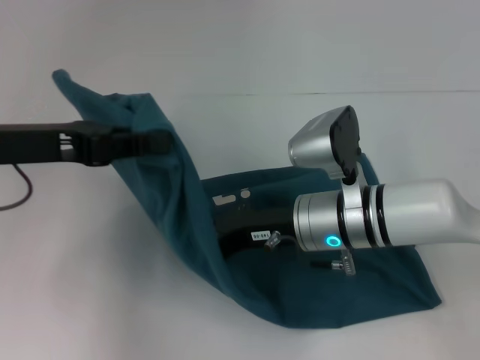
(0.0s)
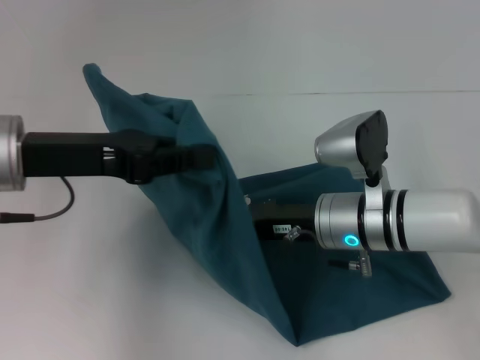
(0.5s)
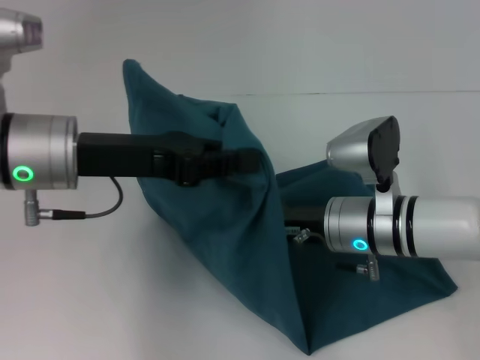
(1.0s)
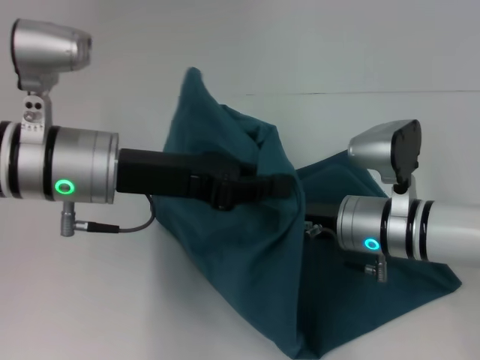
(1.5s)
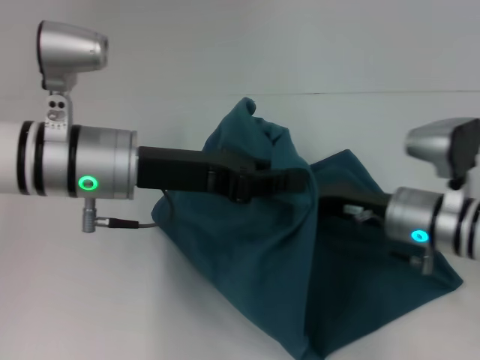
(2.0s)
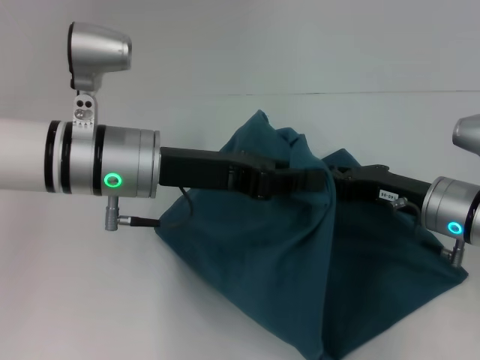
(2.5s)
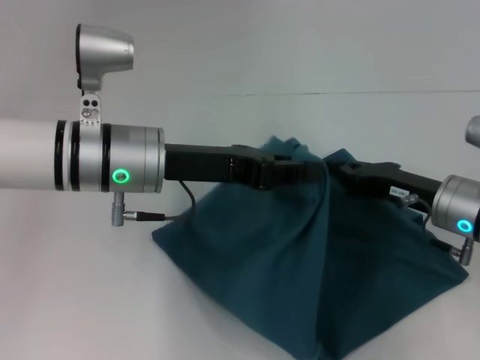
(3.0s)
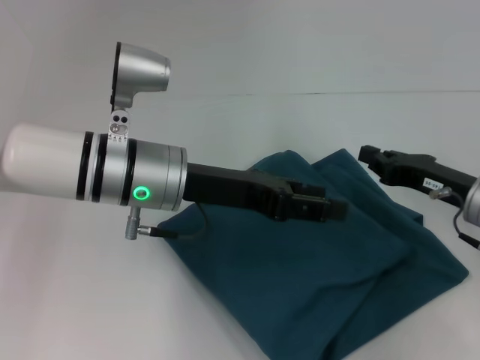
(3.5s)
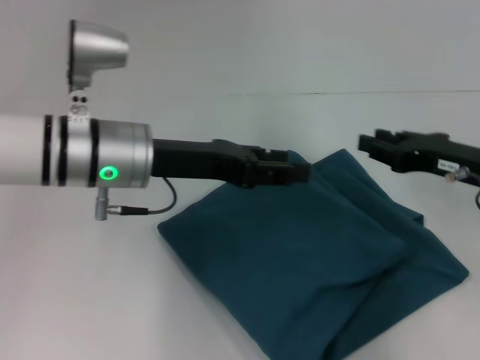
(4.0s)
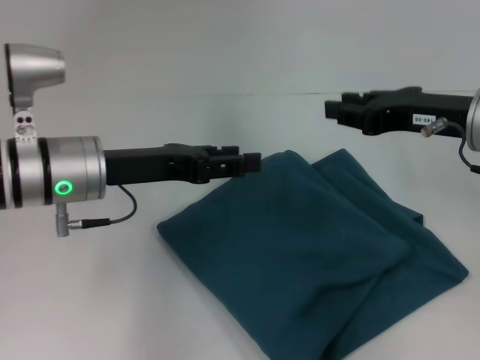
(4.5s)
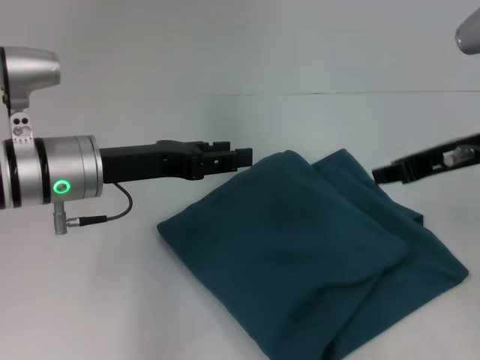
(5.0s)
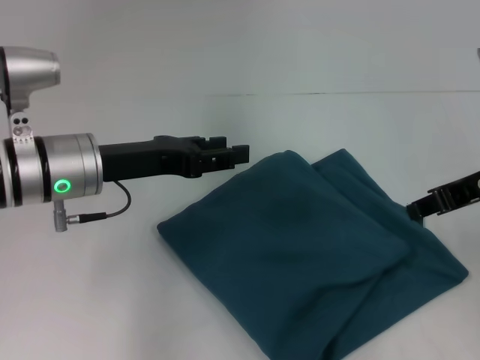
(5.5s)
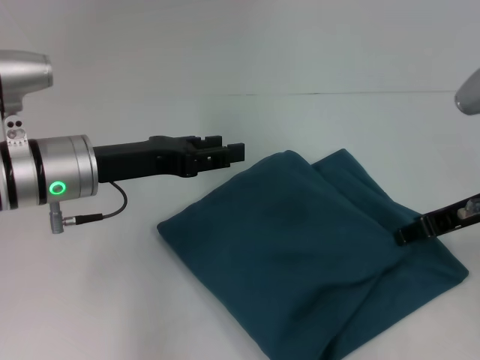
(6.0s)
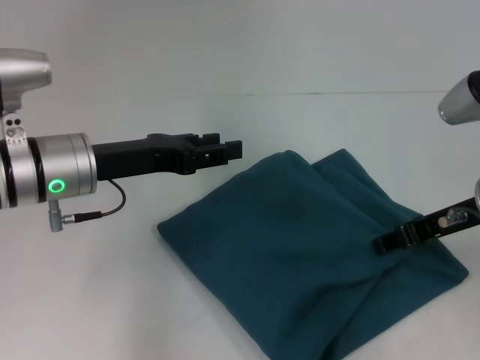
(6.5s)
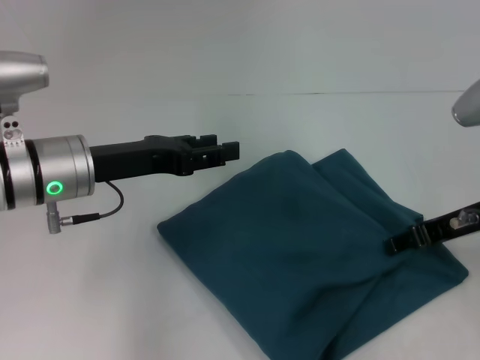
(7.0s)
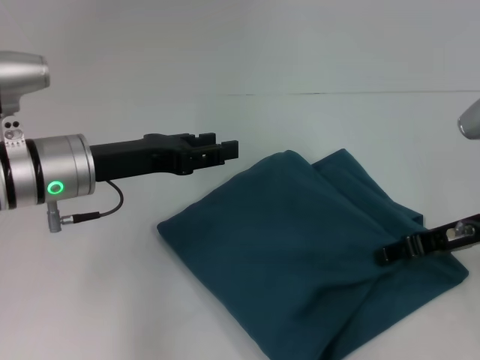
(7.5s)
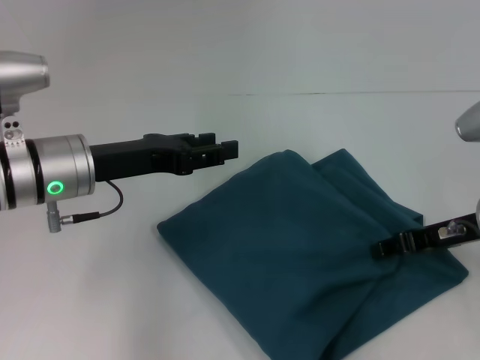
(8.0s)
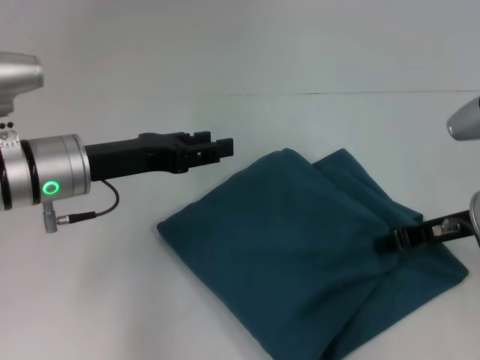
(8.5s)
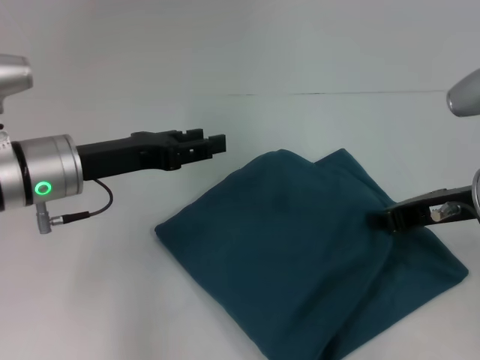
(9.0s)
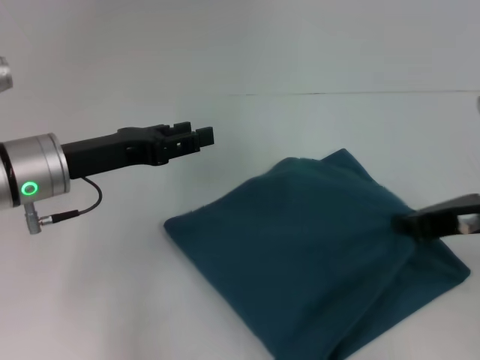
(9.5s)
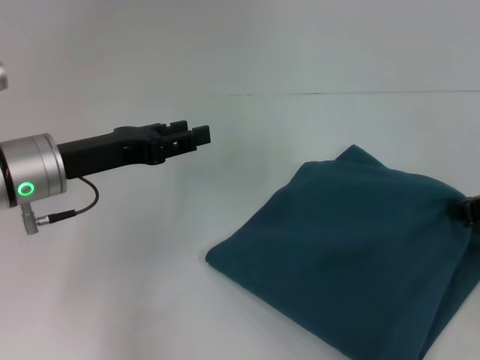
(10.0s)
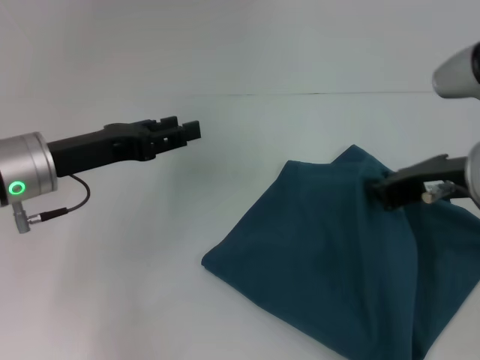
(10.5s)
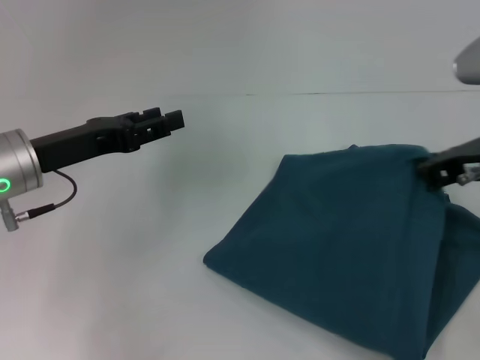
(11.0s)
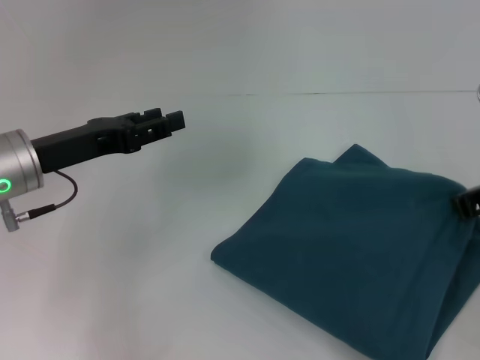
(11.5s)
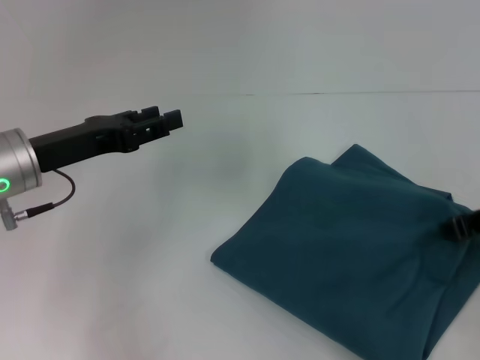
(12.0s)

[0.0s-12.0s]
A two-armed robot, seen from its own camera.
Step, 0.0s to 2.0s: Press the middle of the clothes with your right hand.
Step, 2.5s to 3.5s: Fold the clothes to the left.
0.0s to 2.0s: Both grippers move to the right, roughly 10 cm.
2.0s to 4.0s: The right gripper is displaced to the right and upward by approximately 10 cm. The left gripper opens up.
4.0s to 6.0s: The left gripper moves to the left, approximately 5 cm.
6.0s to 8.0s: The grippers stay close to where they were, moving slightly.
8.0s to 10.0s: The right gripper travels upward by roughly 5 cm, and closes up.

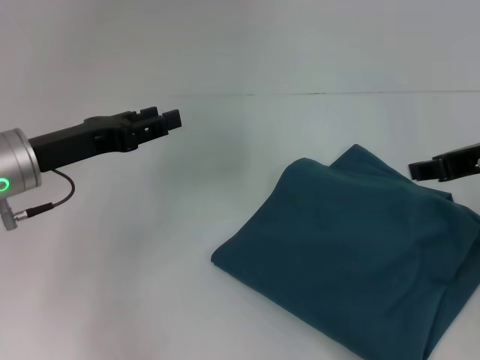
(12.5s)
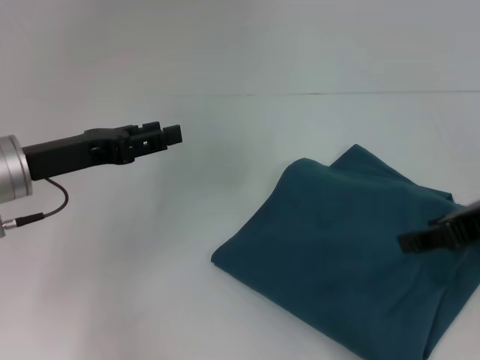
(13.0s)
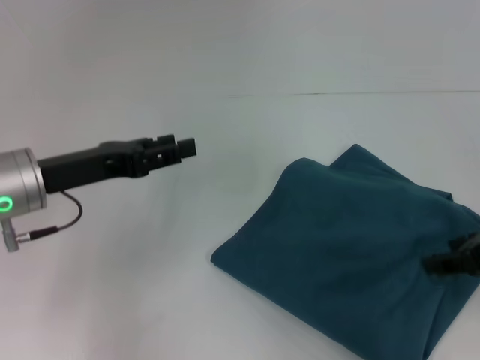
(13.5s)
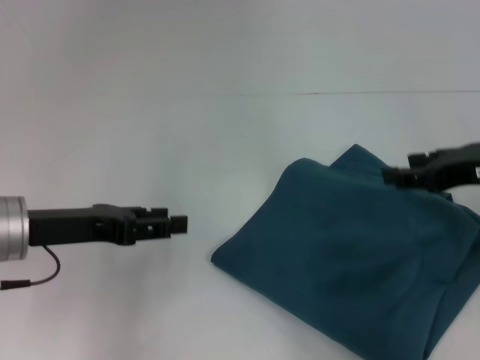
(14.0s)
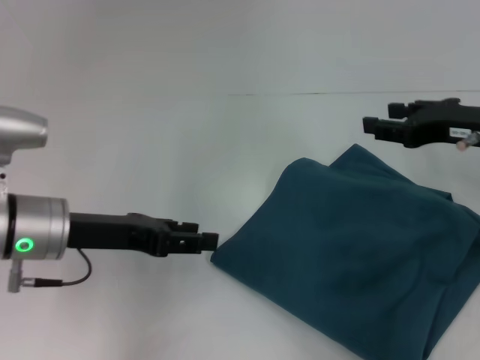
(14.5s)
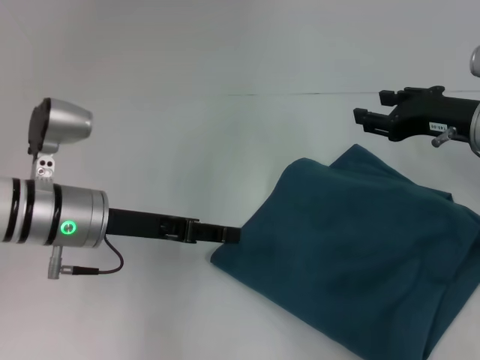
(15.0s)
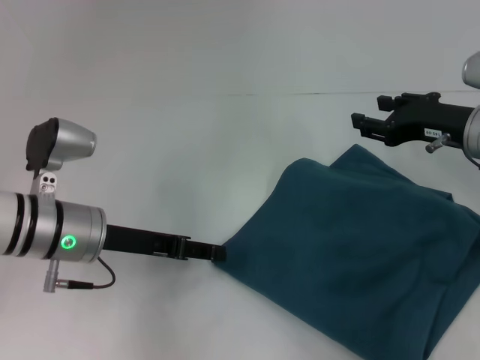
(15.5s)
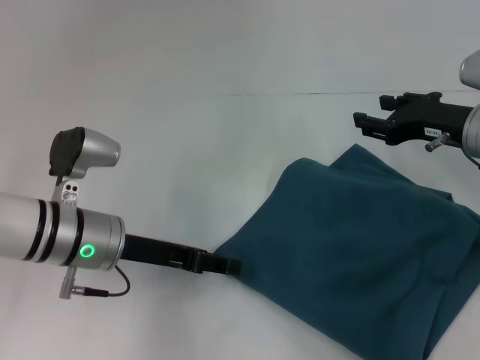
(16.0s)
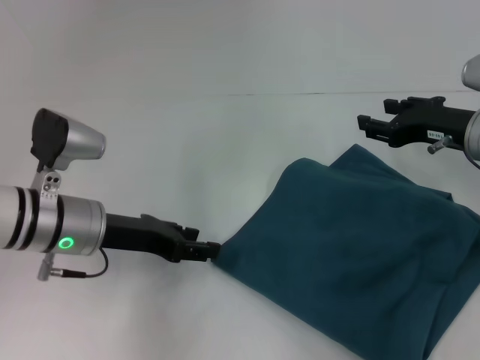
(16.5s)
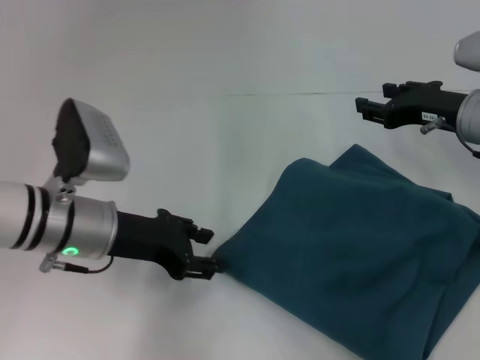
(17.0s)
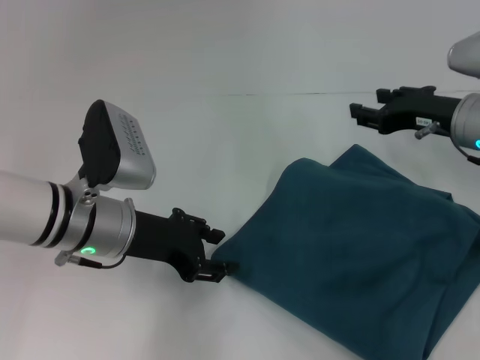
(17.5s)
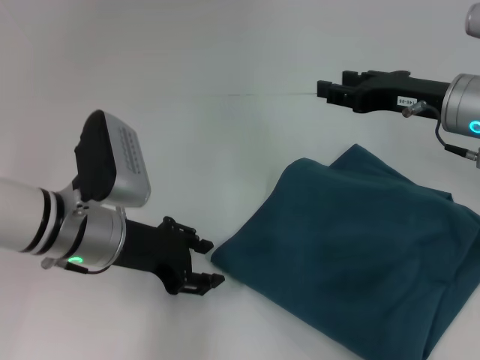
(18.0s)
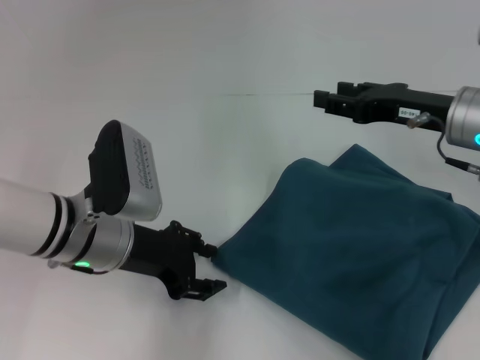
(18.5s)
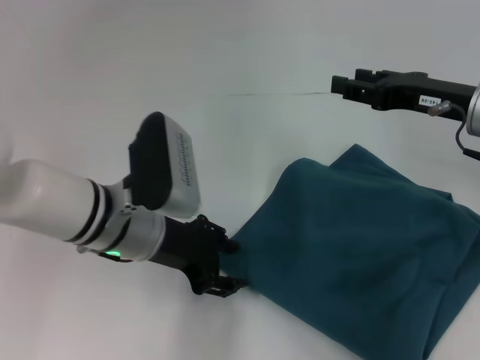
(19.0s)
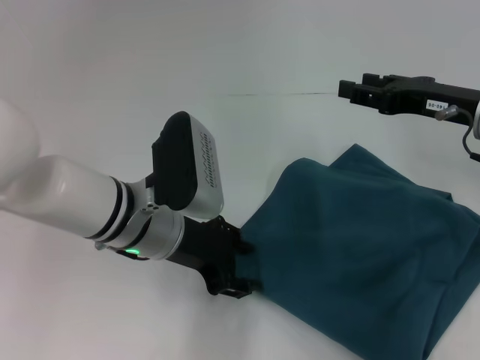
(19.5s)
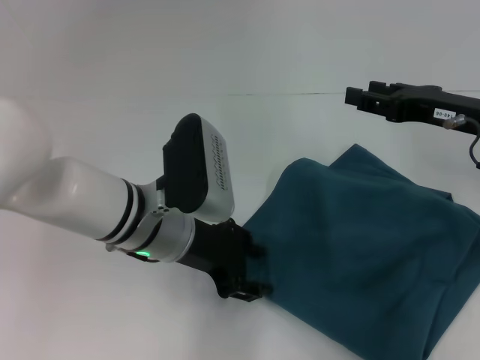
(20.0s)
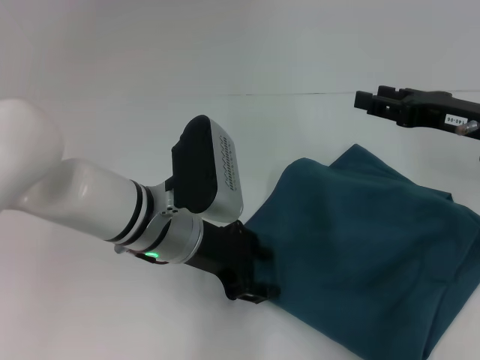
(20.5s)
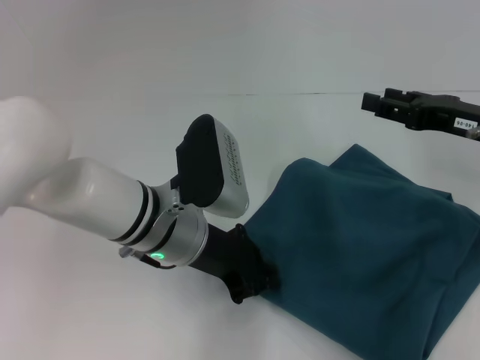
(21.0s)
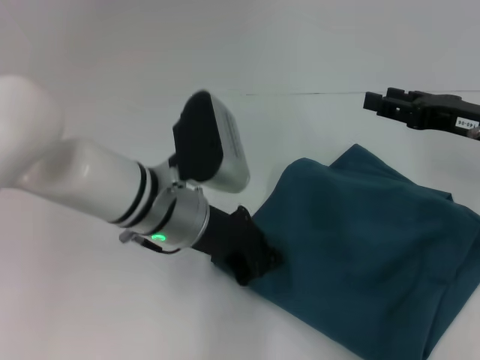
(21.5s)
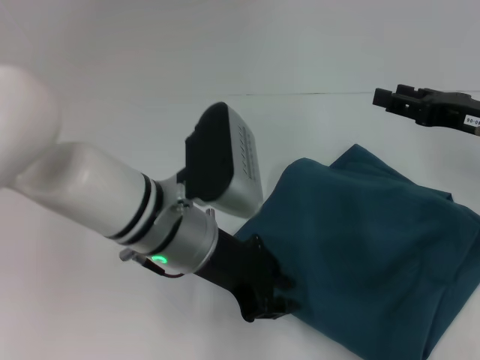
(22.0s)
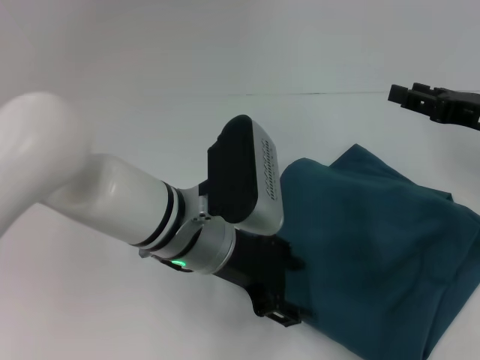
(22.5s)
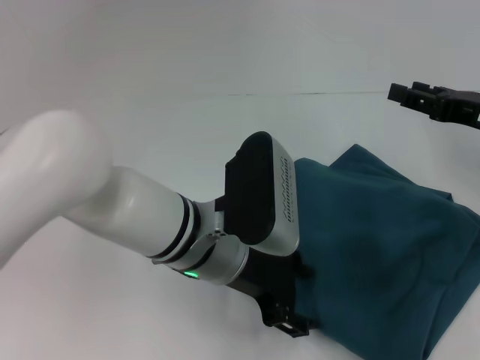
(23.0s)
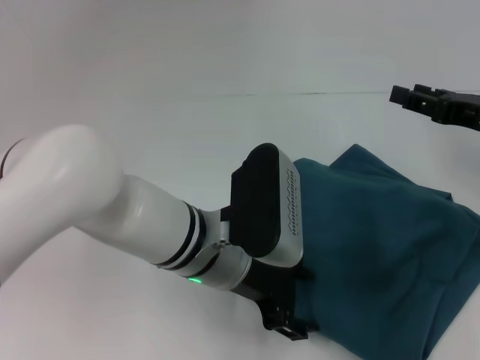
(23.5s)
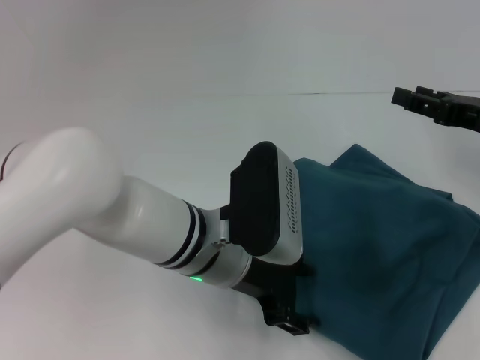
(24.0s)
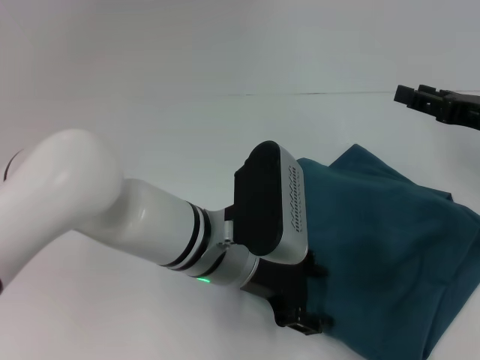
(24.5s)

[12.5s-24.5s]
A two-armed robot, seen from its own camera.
12.5s to 14.5s: The right gripper heads downward, covering roughly 5 cm.
14.5s to 16.5s: The grippers stay close to where they were, moving slightly.
18.5s to 20.5s: The left gripper shifts about 5 cm to the right.
20.5s to 22.5s: The left gripper closes and opens again.
22.5s to 24.5s: There are only small adjustments of the grippers.

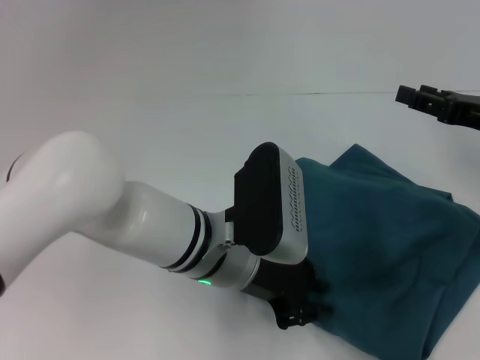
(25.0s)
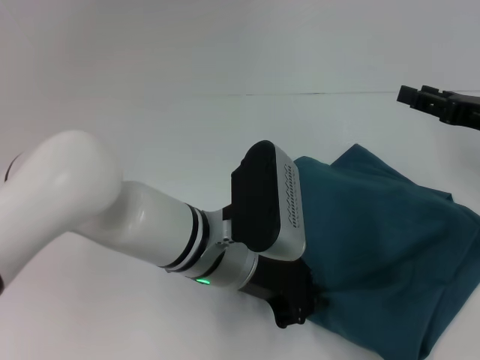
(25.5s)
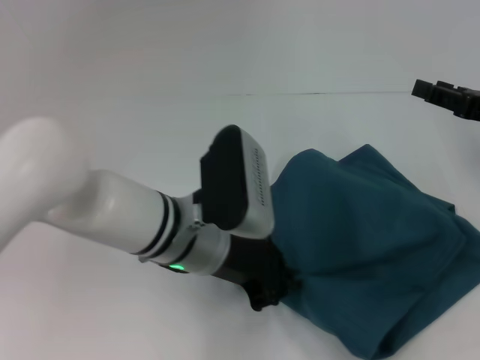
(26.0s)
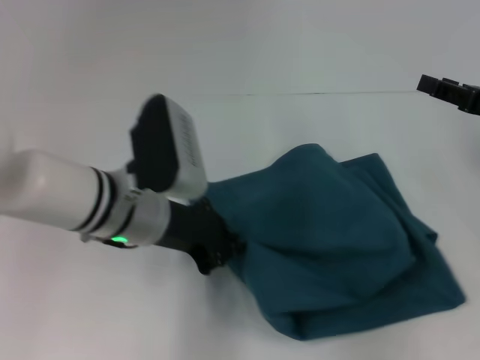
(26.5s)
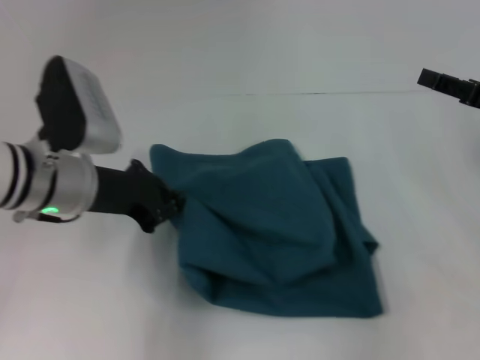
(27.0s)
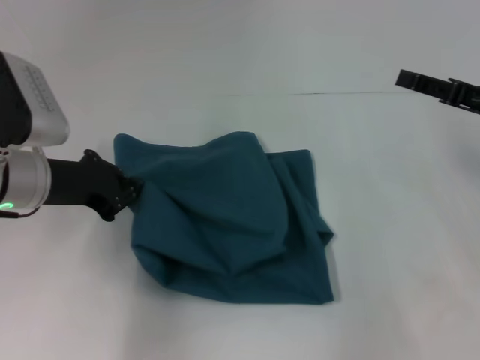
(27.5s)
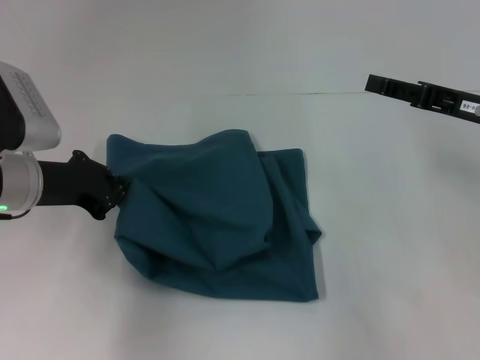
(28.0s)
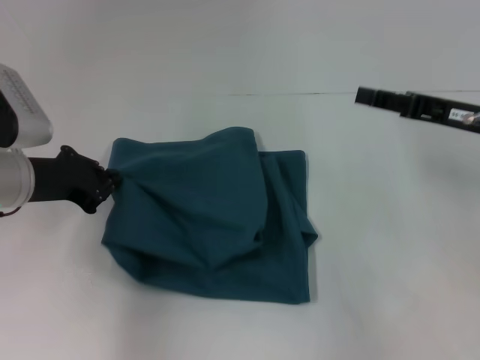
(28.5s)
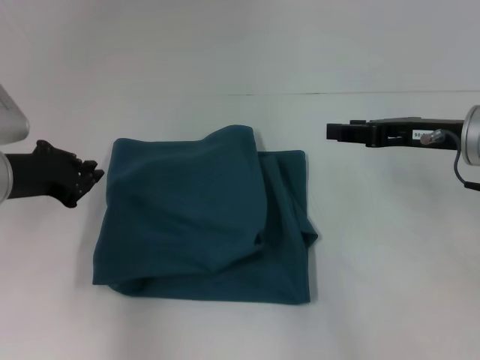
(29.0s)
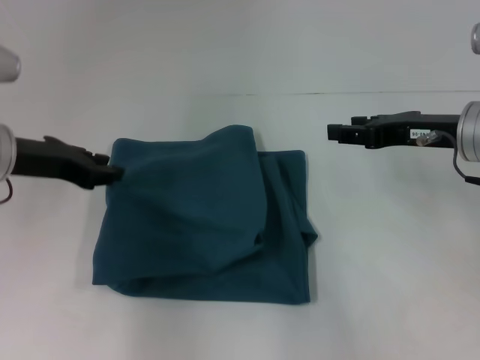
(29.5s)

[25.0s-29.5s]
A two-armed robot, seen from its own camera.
25.0s to 27.0s: The left gripper shifts roughly 15 cm to the left, and closes its fingers.
27.0s to 29.5s: Both grippers travel together to the left, about 5 cm.
